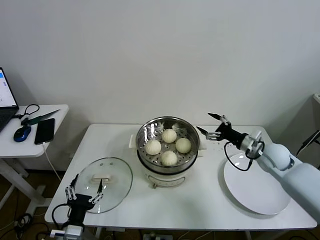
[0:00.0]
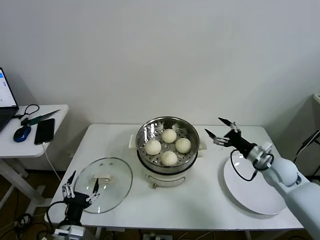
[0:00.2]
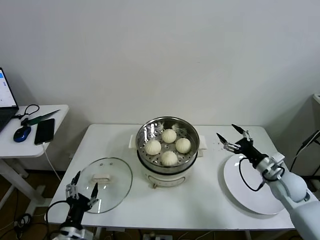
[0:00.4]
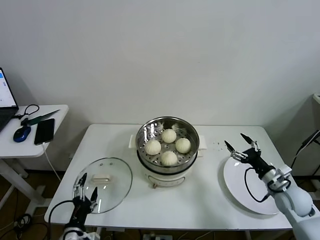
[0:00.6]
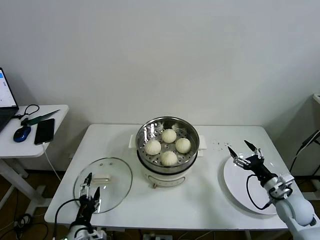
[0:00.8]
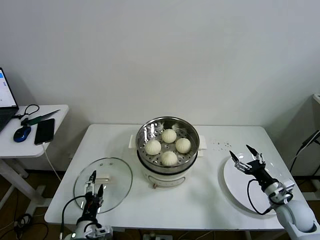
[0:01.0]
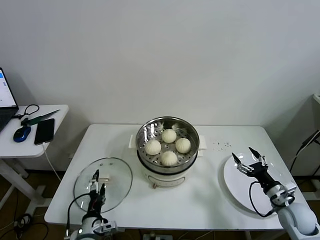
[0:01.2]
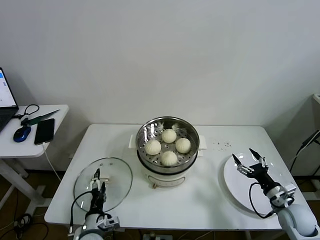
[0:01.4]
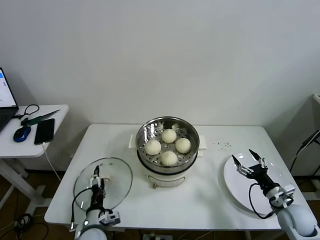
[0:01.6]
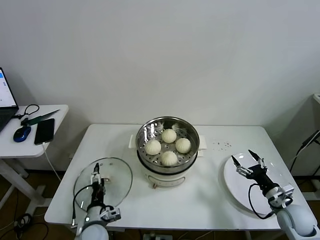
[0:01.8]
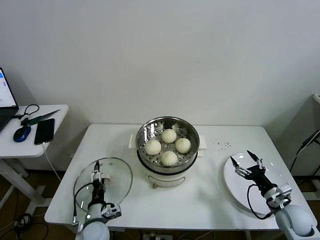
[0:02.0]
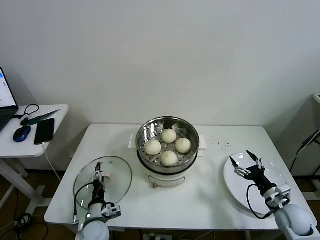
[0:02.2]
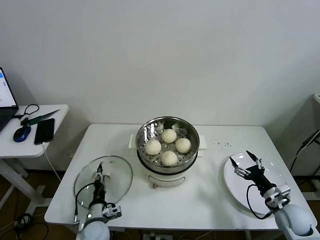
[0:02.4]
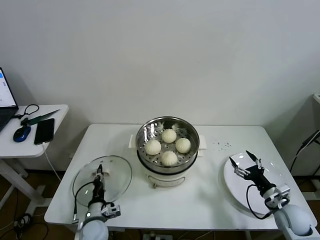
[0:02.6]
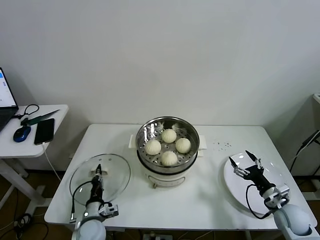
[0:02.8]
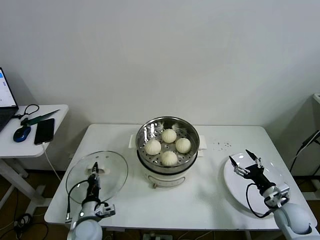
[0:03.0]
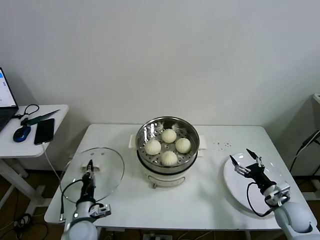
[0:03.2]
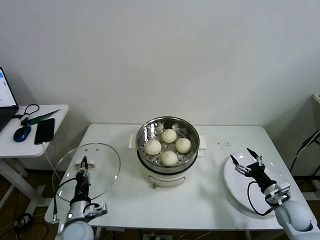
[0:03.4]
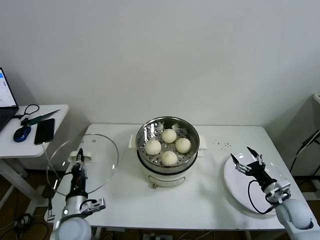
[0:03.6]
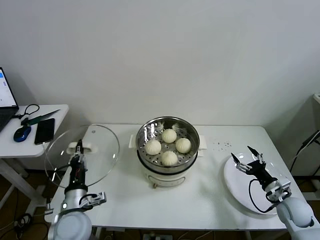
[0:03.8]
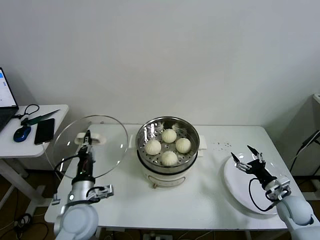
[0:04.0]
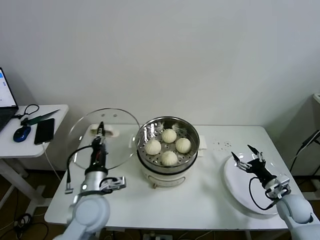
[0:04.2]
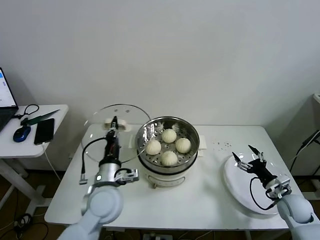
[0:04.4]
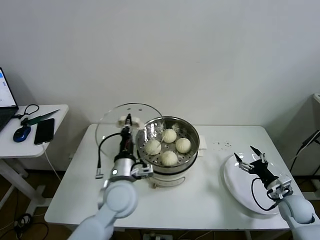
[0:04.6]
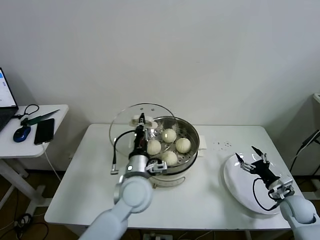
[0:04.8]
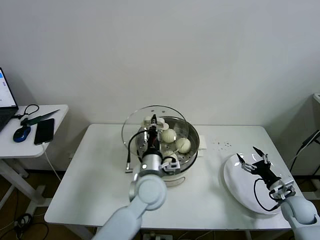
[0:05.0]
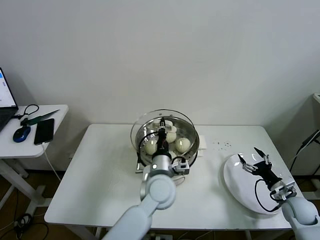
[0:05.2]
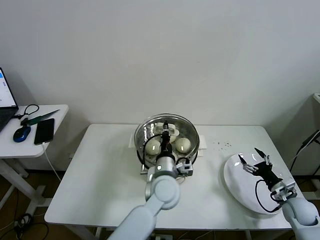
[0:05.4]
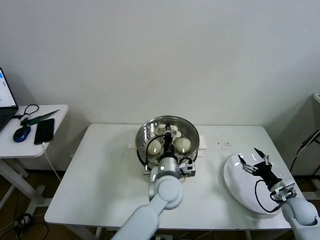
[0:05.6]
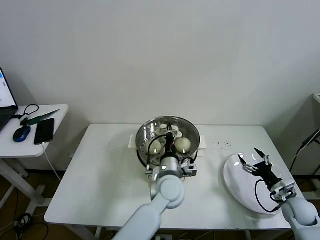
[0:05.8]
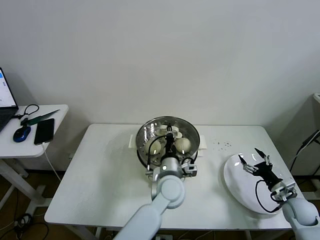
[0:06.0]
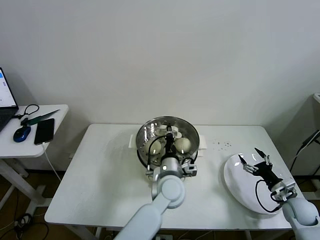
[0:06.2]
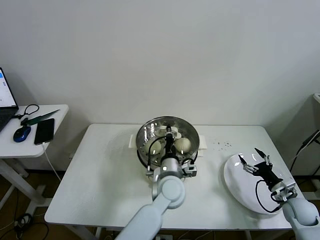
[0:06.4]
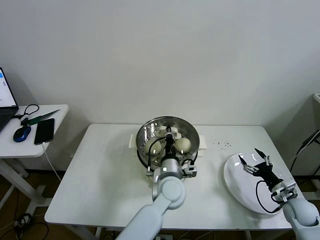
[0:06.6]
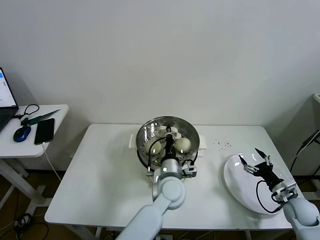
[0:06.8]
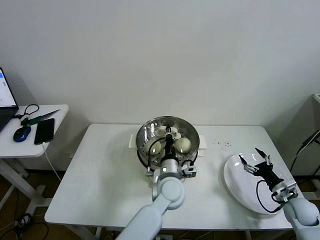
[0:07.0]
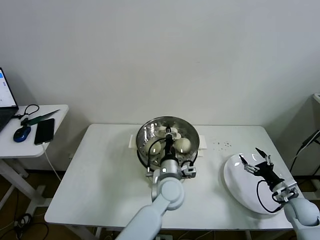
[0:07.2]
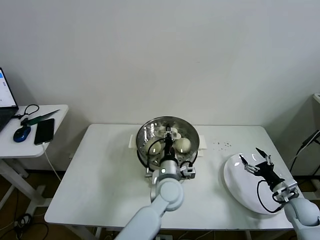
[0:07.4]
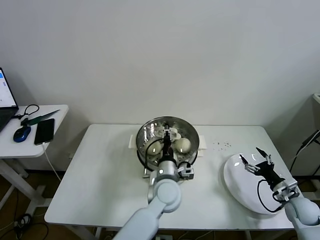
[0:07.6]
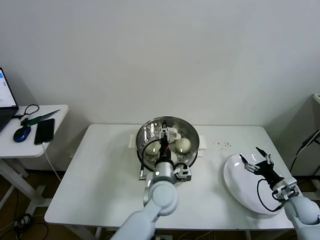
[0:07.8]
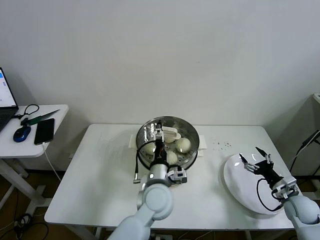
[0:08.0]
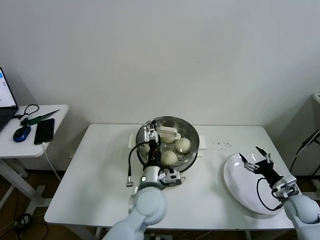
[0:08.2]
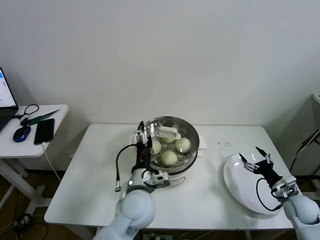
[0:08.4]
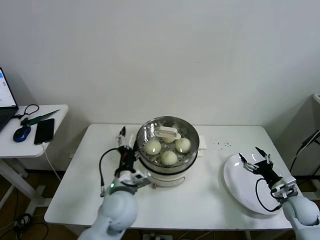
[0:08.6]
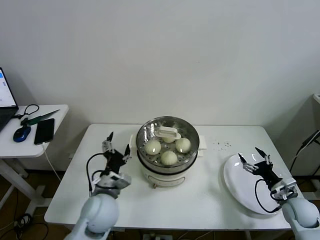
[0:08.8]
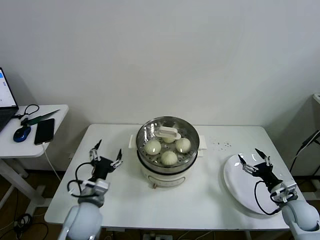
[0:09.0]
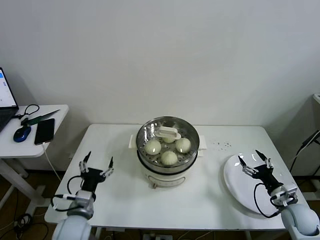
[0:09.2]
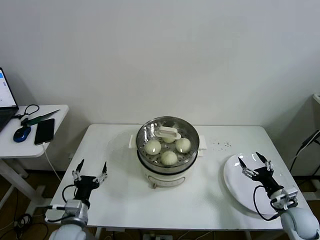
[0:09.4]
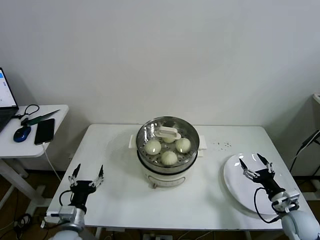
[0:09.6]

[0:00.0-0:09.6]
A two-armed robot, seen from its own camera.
Task of the whole recording: take steamed baozi put them in steamer then cover it.
Step, 0:00.0 to 0:02.6: Grasp the pot lid with left gripper.
Step, 0:02.8 to 0:07.4: Place the pot lid on the steamer with left gripper.
0:00.0 to 0:01.6: The left gripper goes approximately 10 cm downward and forward; the right gripper goes approximately 20 cm backward and downward.
0:01.6 to 0:03.2: The left gripper closes up.
0:03.2 to 0:04.8: The left gripper travels upward and to the right by roughly 25 cm.
0:04.8 to 0:06.4: The left gripper goes approximately 15 cm to the right and downward.
0:06.4 to 0:08.0: The left gripper opens up.
0:08.0 to 0:09.6: The left gripper travels to the left by about 30 cm, while the right gripper moves some 5 cm.
